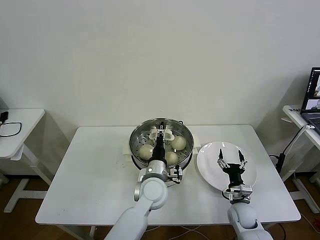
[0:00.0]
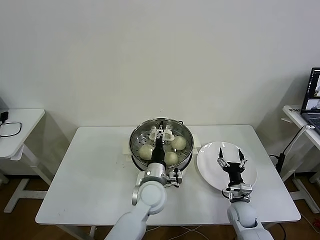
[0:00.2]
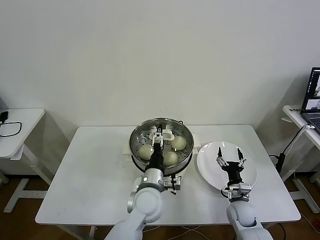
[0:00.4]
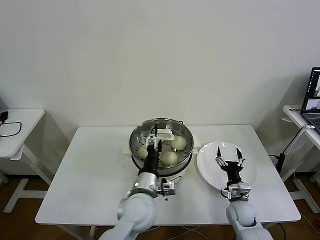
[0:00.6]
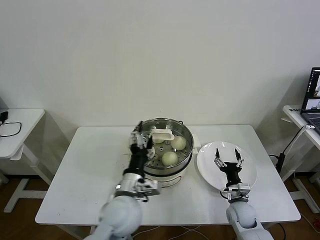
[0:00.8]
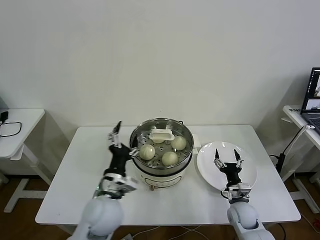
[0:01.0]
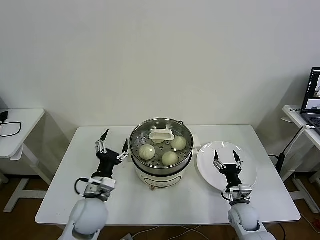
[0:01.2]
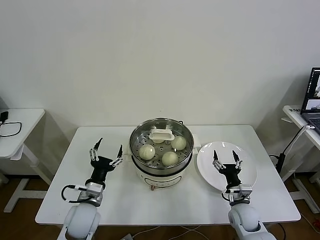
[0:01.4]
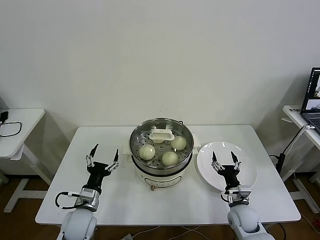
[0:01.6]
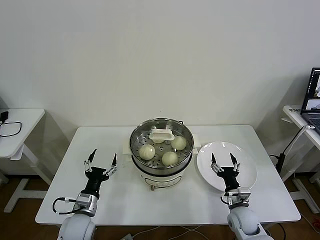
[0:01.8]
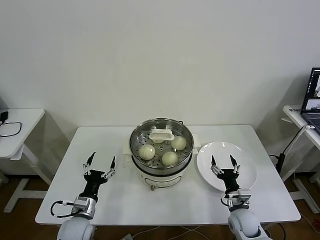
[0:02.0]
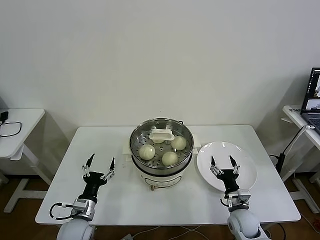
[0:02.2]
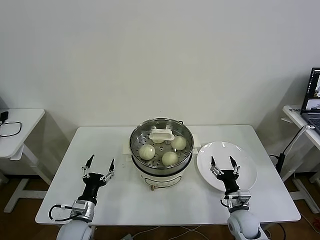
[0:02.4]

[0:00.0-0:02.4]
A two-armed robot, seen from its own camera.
Task of the whole recording: take steamed baozi put them in steamer then cover it.
0:00.0 to 0:01.2: The left gripper is displaced to the left and backward by some 20 cm, and opens its fingers.
0:01.2 to 0:02.4: The left gripper heads downward and to the left, covering roughly 15 cm.

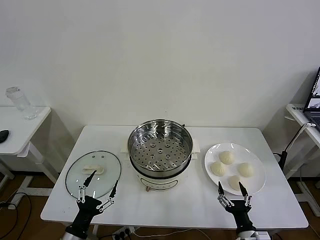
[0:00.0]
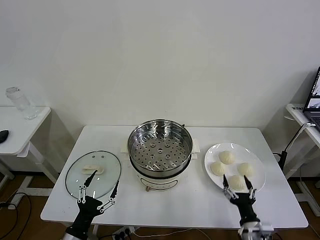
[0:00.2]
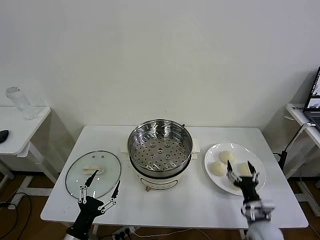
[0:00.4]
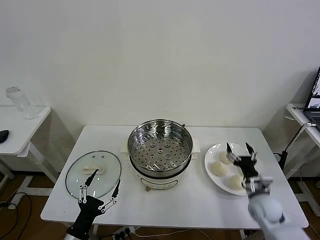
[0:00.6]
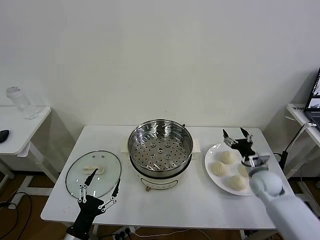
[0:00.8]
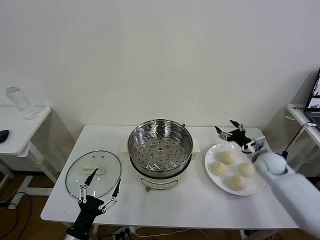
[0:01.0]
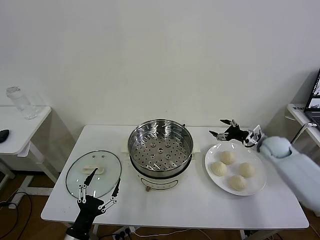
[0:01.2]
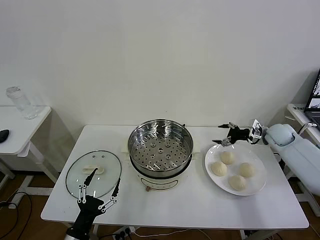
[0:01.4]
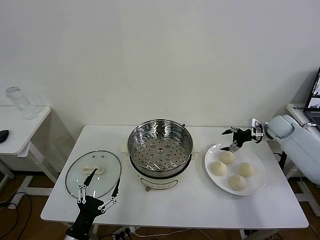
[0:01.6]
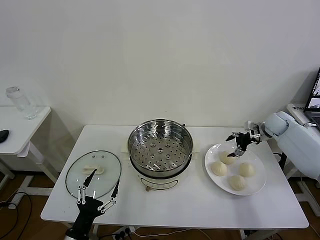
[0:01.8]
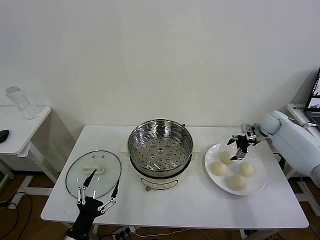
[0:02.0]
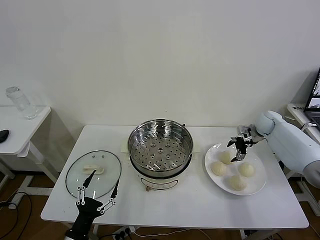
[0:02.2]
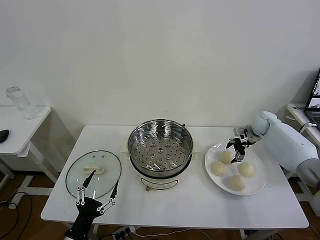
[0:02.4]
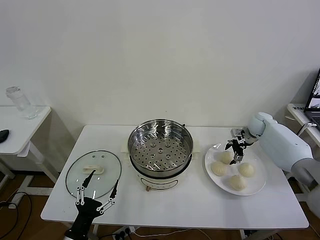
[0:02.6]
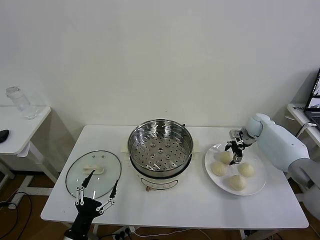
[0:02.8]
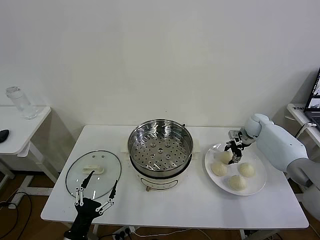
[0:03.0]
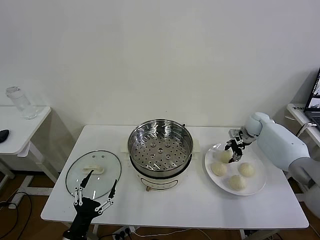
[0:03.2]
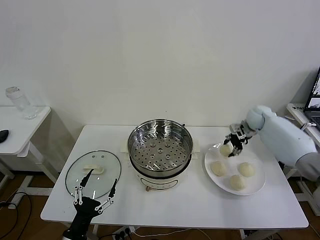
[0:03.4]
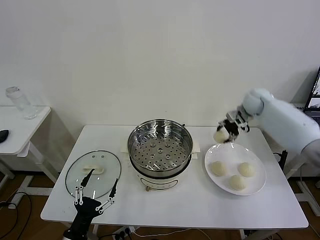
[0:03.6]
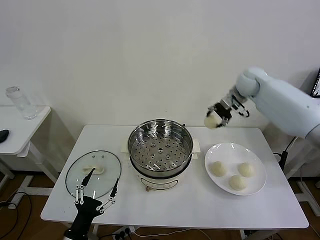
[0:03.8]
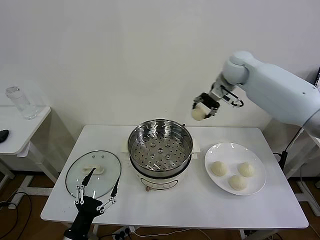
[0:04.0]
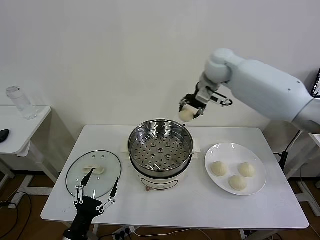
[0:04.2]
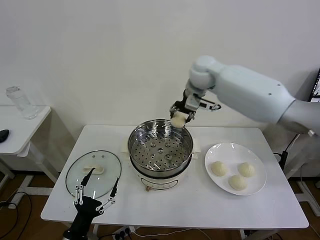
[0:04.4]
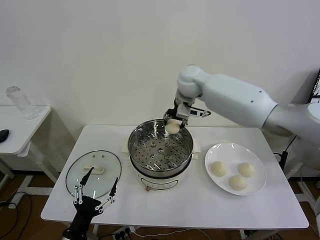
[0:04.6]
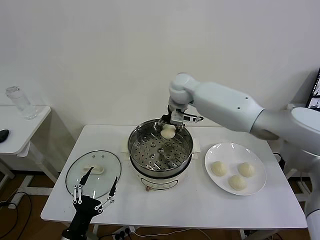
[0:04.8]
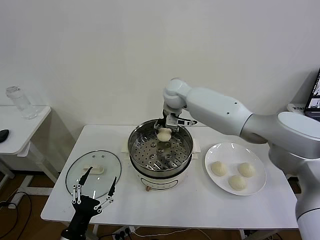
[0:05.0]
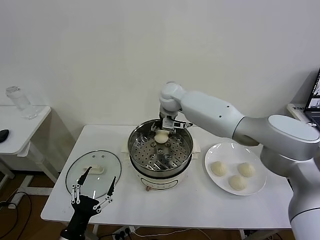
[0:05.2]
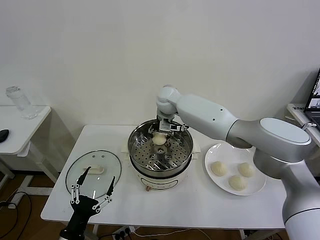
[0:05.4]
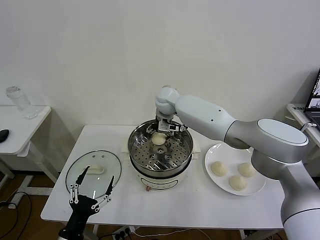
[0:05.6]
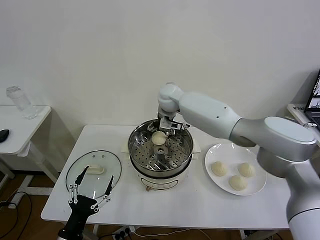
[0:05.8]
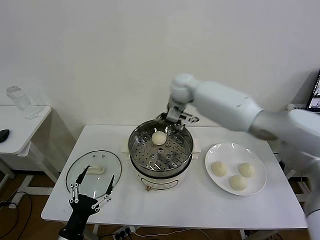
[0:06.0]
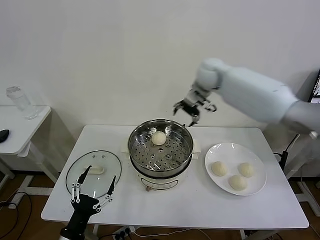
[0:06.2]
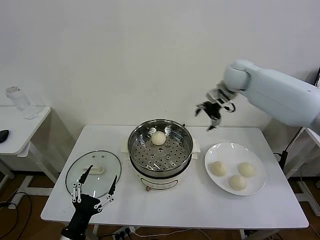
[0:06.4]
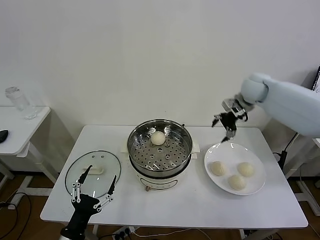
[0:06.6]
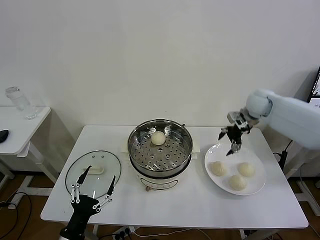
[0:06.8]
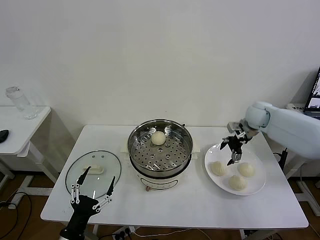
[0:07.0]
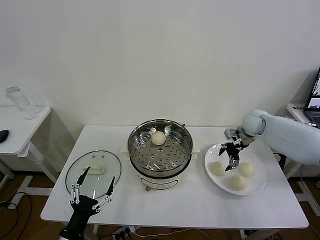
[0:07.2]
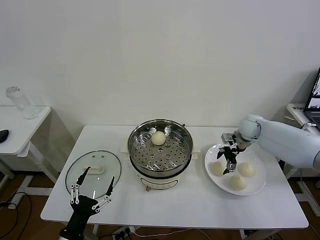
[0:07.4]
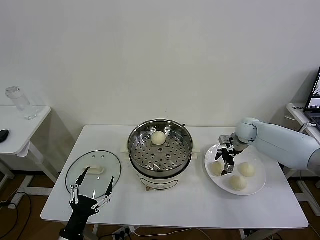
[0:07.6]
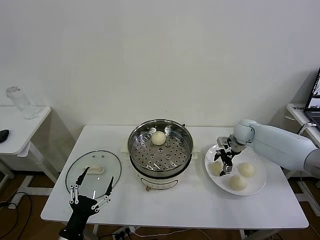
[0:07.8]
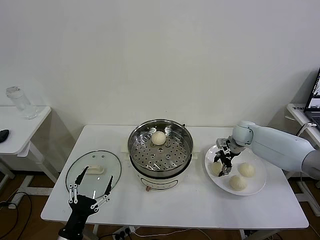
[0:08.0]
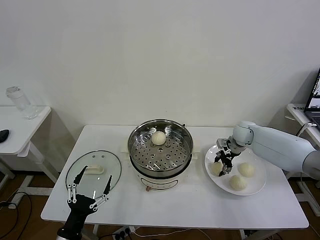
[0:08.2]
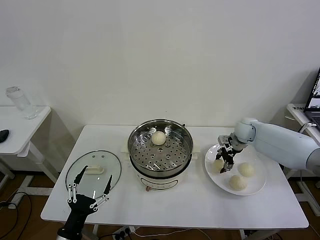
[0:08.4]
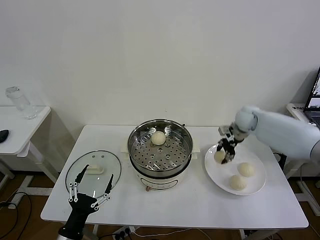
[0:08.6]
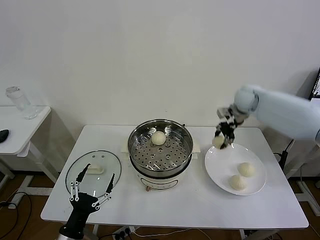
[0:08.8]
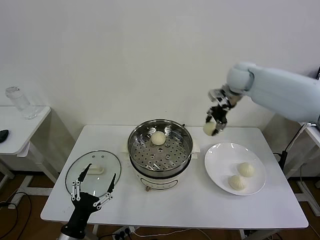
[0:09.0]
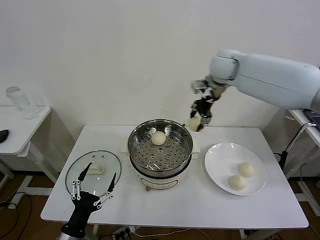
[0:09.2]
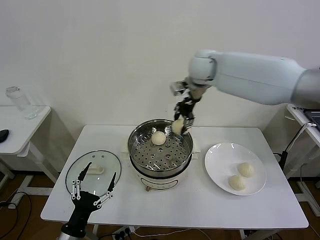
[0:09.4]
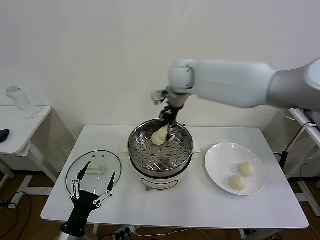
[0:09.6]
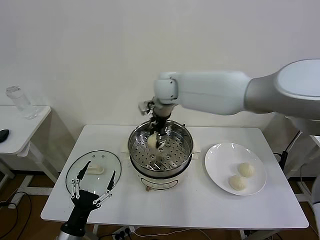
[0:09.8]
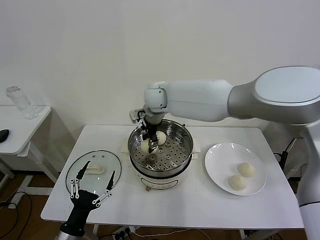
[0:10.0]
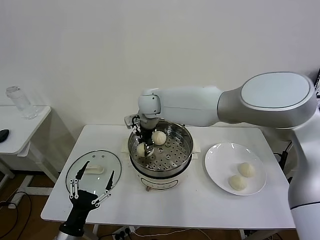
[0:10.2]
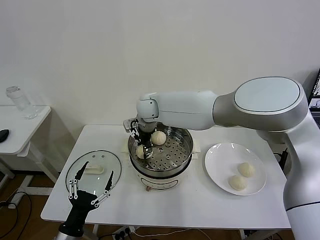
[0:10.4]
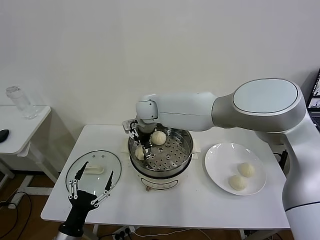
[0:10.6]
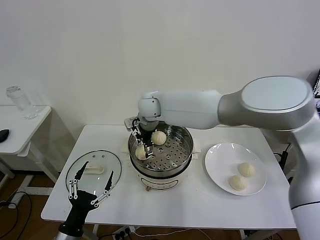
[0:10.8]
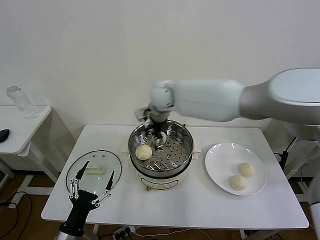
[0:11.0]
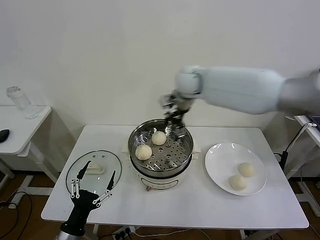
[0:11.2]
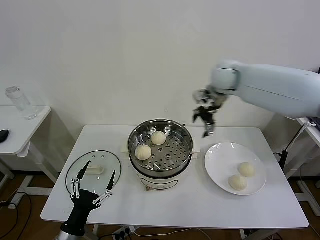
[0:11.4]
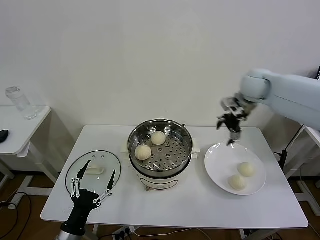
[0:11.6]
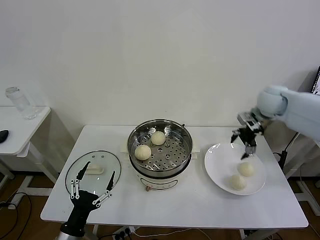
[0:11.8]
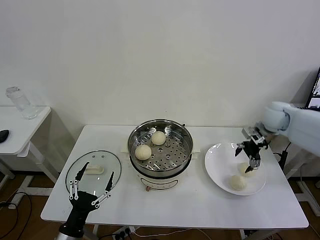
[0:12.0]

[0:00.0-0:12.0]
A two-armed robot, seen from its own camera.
Task of the whole recording: take steamed baozi put them in steamer then cover it.
Step, 0:00.0 to 0:03.0: Grasp the baozi in the plate with right gripper.
Step, 0:03.2 to 0:05.6: Place the baozi on the steamer with right gripper.
Step, 0:06.0 to 0:08.0: Grasp the baozi in the plate with right gripper.
Step, 0:08.2 to 0:10.6: Place the baozi on the steamer with right gripper.
0:01.6 to 0:03.0: The right gripper shifts roughly 10 cm to the left and forward, and closes up.
0:03.0 to 0:04.4: The right gripper moves to the left and upward, roughly 35 cm.
0:04.4 to 0:06.0: The right gripper travels downward and to the left by some 5 cm, and opens.
0:06.0 to 0:07.6: The right gripper goes approximately 30 cm to the right and downward.
0:07.6 to 0:09.0: The right gripper is displaced upward by roughly 20 cm, and closes up.
0:09.0 to 0:10.4: The right gripper heads to the left, covering roughly 30 cm.
0:10.4 to 0:12.0: The right gripper goes approximately 40 cm to the right, and opens up.

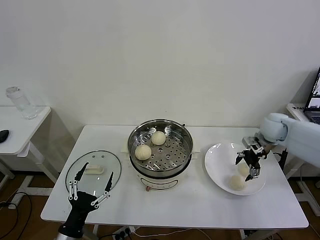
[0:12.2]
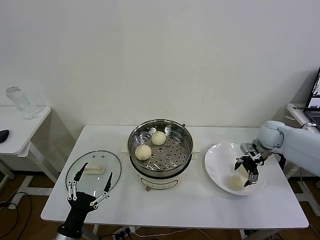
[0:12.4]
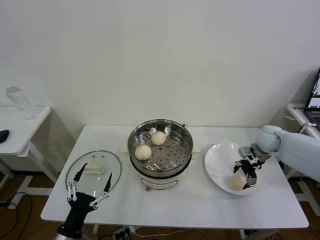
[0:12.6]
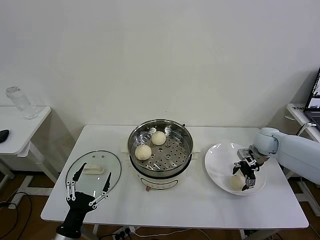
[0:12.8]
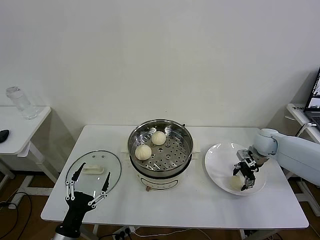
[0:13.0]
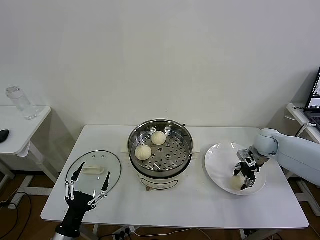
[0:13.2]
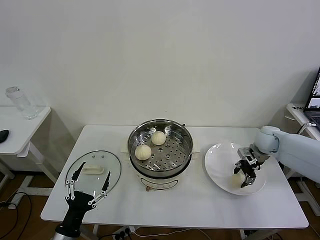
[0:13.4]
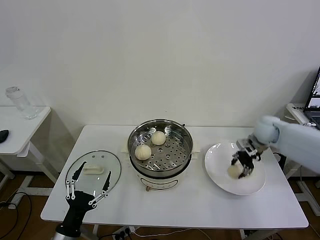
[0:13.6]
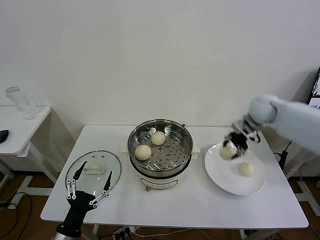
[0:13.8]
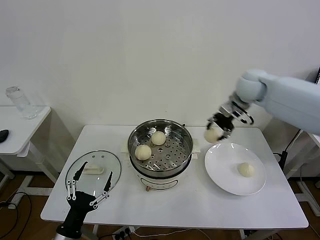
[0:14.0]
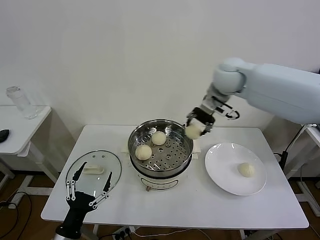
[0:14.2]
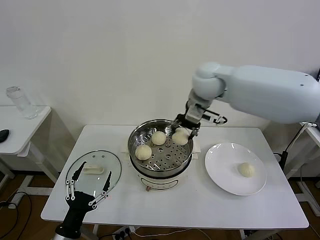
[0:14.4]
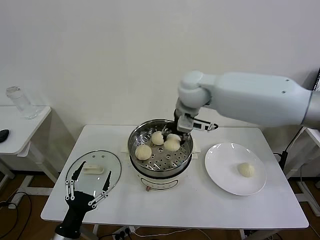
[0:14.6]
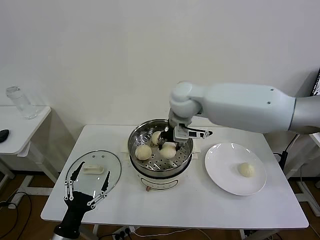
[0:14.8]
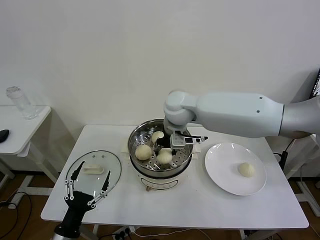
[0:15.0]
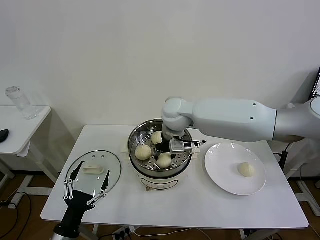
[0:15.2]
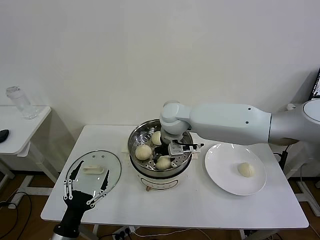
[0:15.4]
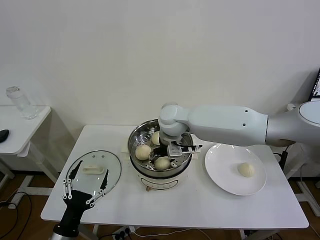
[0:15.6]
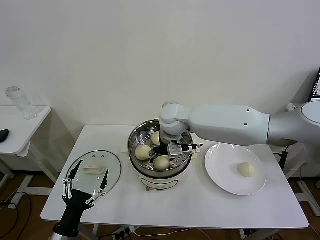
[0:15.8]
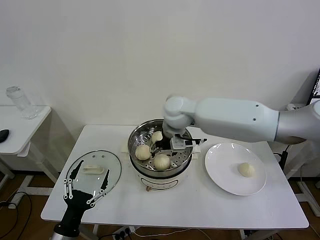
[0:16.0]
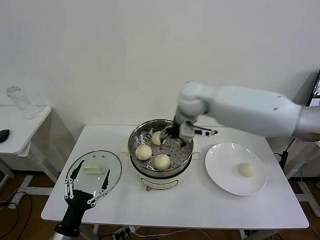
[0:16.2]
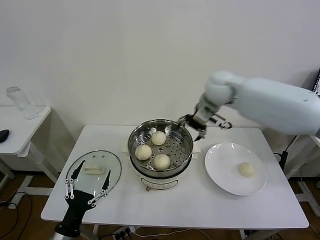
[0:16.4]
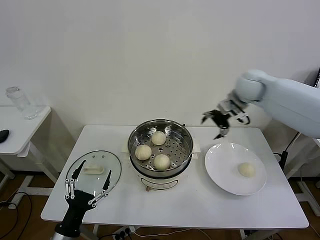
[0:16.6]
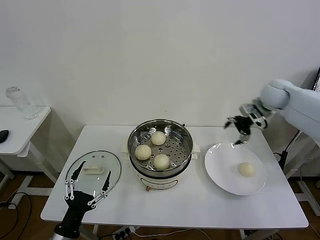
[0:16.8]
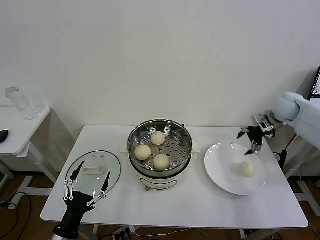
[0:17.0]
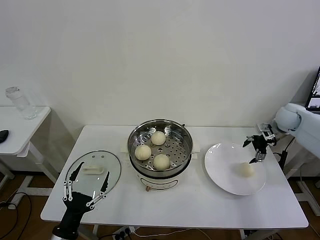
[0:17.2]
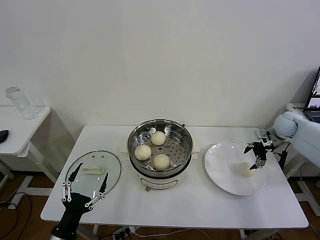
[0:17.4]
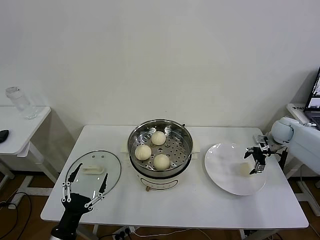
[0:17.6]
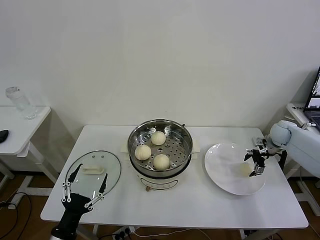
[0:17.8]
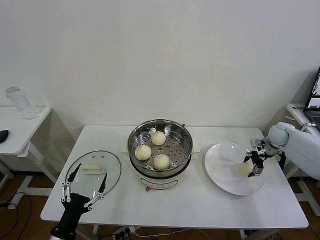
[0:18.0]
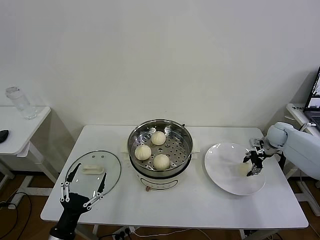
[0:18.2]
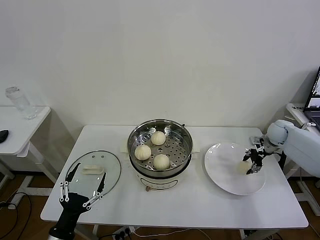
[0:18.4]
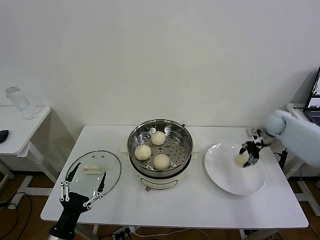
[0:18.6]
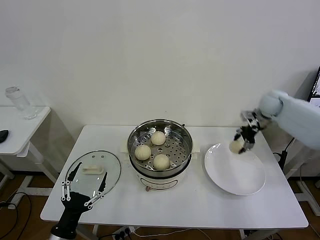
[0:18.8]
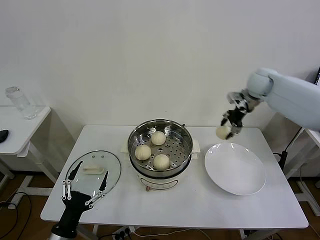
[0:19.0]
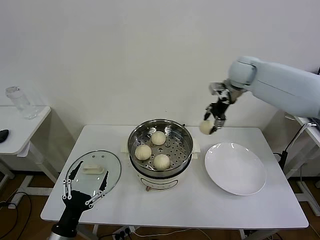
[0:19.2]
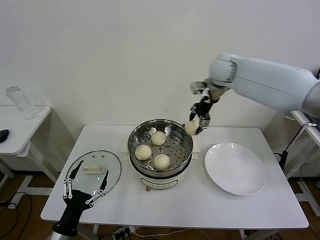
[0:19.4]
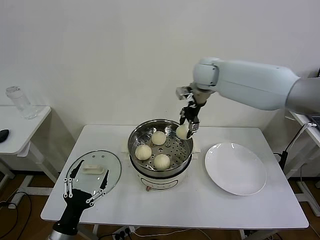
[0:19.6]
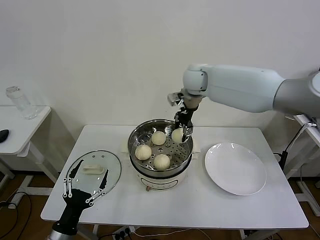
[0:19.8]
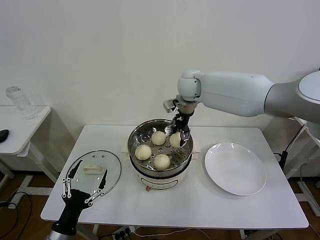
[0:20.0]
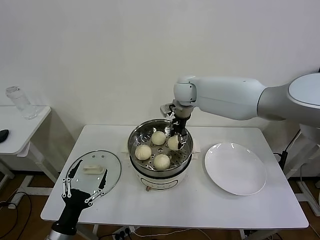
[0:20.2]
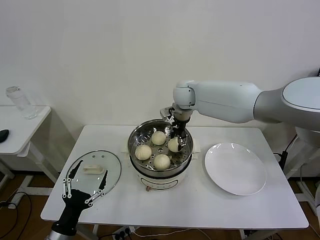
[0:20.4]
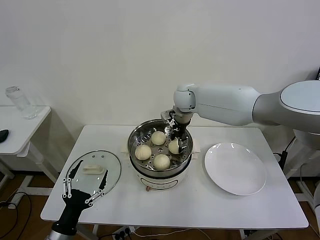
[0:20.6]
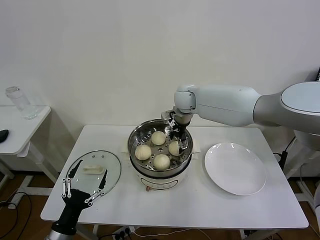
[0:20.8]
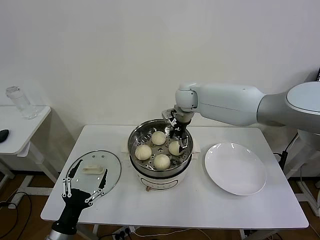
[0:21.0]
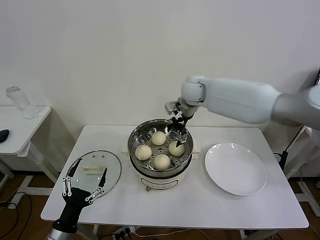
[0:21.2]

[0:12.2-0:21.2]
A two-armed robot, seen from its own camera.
Task of the whole recording: take steamed baozi put them in steamer then cover it.
Step, 0:13.4 to 0:15.8: Place the baozi on the steamer with right gripper.
Step, 0:16.0 to 0:18.2: Grasp the baozi in the plate with right gripper.
Step, 0:18.4 to 0:20.8: Place the baozi on the steamer with right gripper.
0:12.2 to 0:13.8: The right gripper ends up approximately 5 cm from where it was, and closes up.
0:13.8 to 0:15.2: The right gripper is displaced to the left by about 30 cm.
0:15.2 to 0:16.6: The right gripper moves to the right, some 20 cm, and opens up.
0:16.6 to 0:18.2: The right gripper moves downward and to the right, about 30 cm, and closes up.
0:18.2 to 0:19.8: The right gripper travels to the left and upward by some 40 cm.
0:19.8 to 0:21.2: The right gripper opens its fingers.
